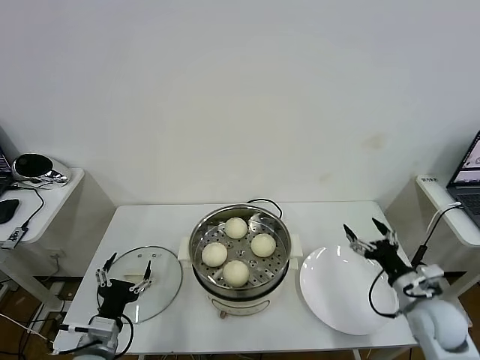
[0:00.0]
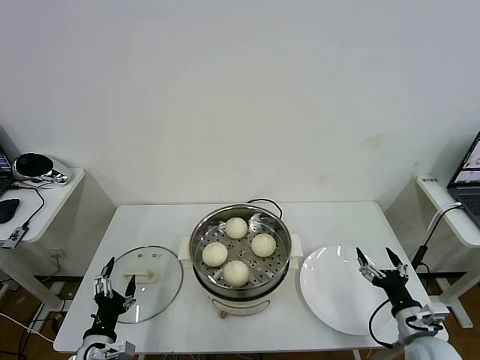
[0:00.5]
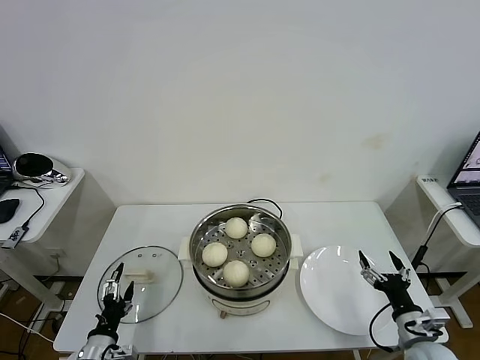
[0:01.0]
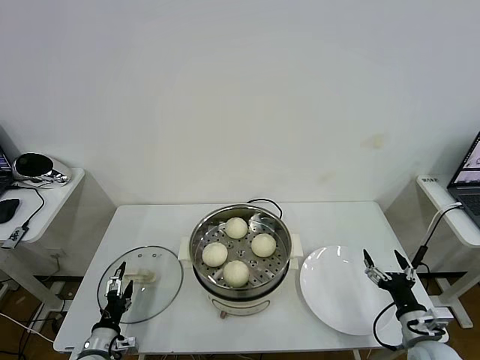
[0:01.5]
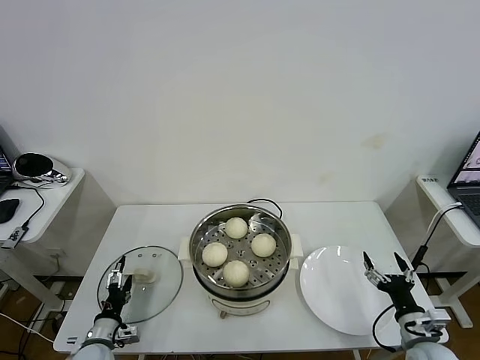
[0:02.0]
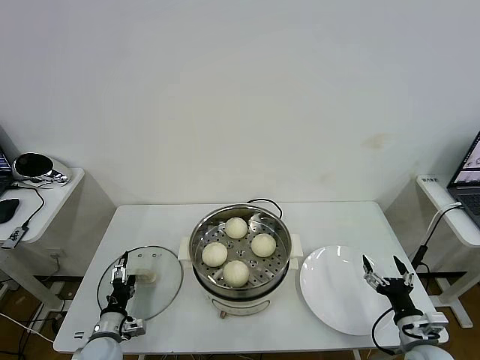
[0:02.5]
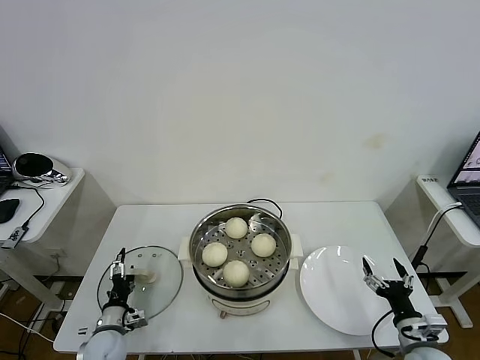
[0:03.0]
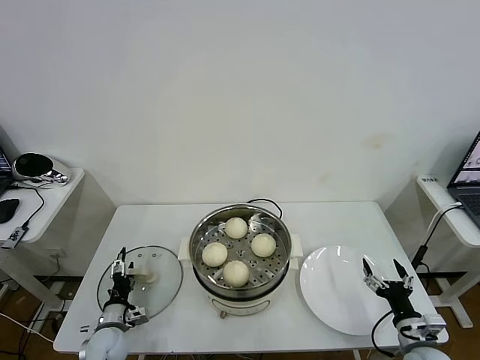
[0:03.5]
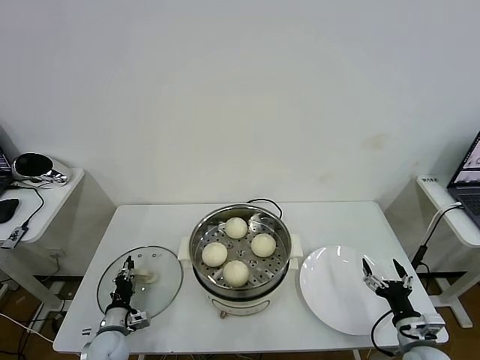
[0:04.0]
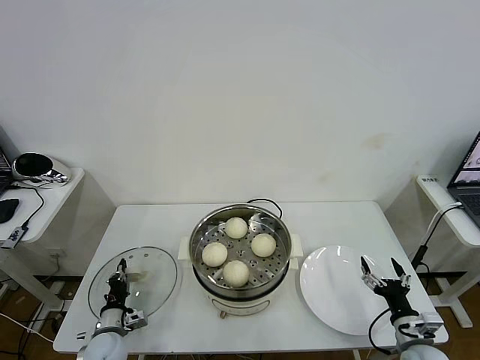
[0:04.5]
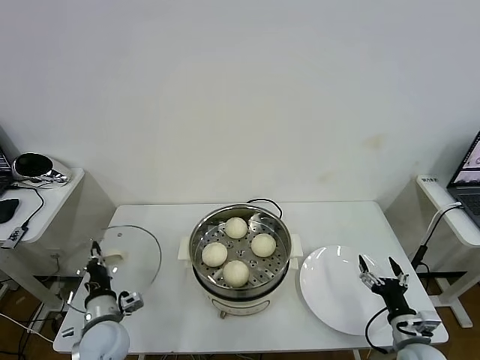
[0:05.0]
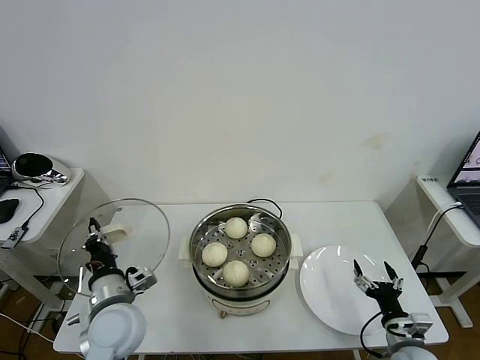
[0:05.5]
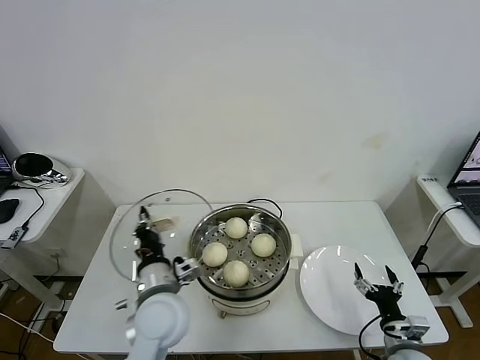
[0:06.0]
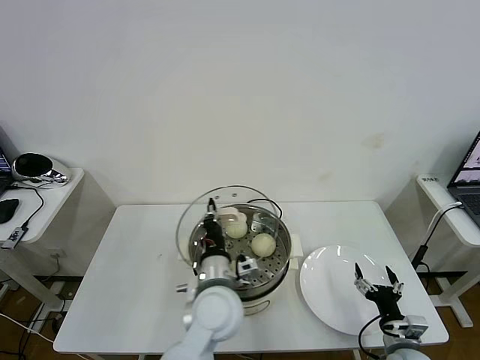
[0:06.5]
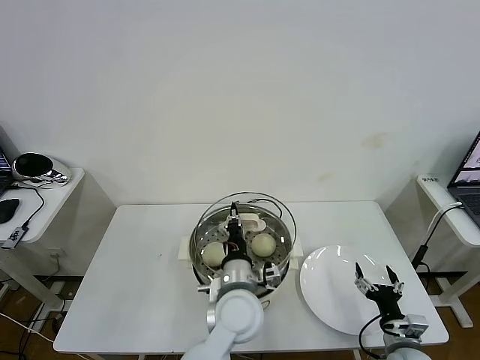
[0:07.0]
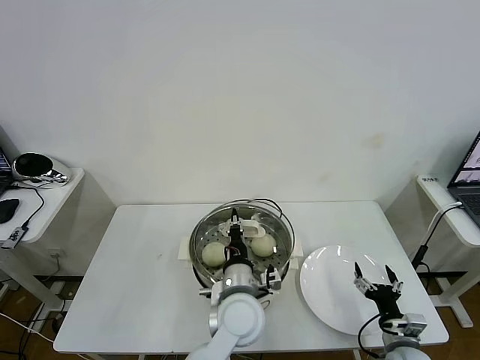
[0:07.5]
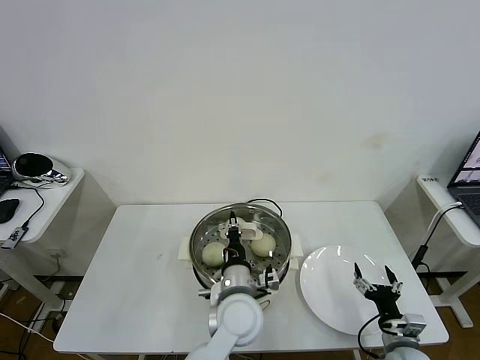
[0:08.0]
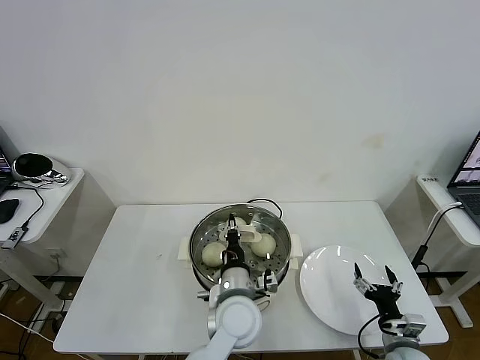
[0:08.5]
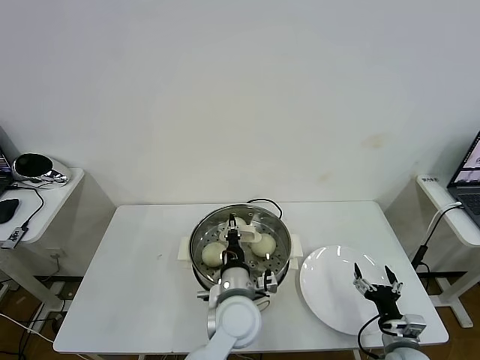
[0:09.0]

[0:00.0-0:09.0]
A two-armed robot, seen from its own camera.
Task of the whole recording: take steamed baozi put them in steamer then cover it.
Step, 0:00.0 to 0:04.0: Grasp the pot lid with left gripper.
0:00.0 to 0:02.0: The right gripper shifts some 10 cm backward and downward. The left gripper shifts roughly 15 cm downward and to the left.
0:02.0 to 0:04.5: The left gripper closes up.
0:04.5 to 0:07.0: The left gripper shifts roughly 40 cm to the right and upward.
0:07.0 to 0:09.0: The grippers stay close to where they were, moving slightly.

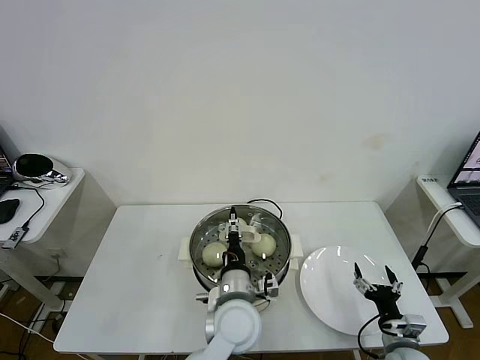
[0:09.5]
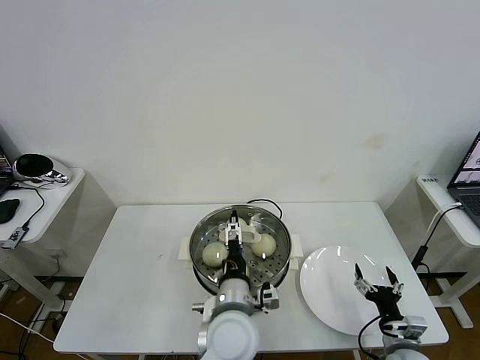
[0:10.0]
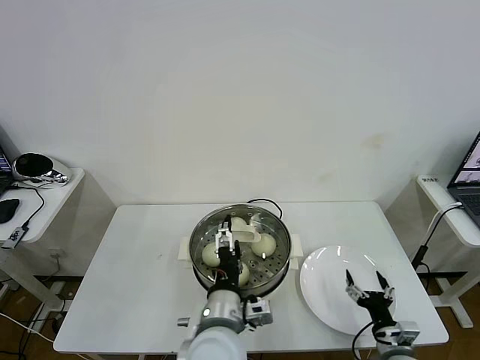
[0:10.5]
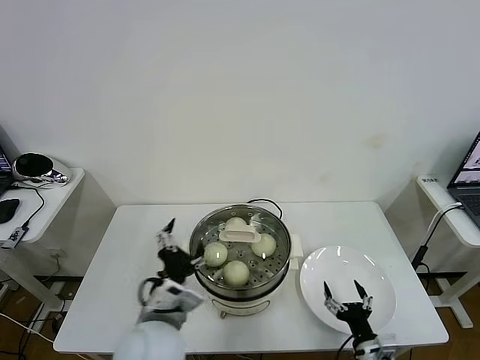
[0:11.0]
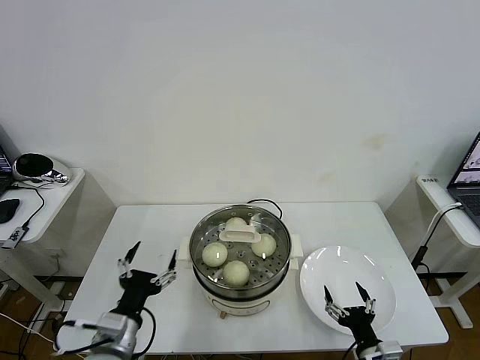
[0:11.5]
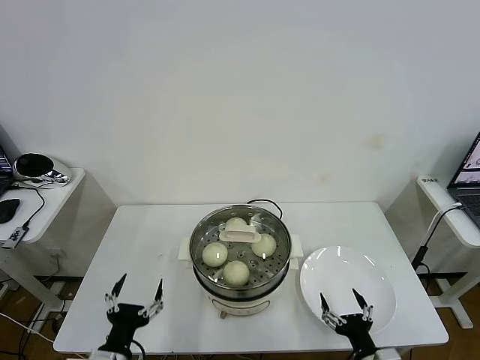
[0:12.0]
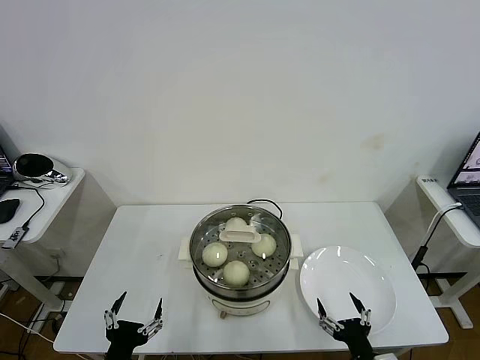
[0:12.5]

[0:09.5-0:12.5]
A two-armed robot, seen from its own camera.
Task of the whole recording: take steamed baozi put them in steamer then cover it.
0:09.5 to 0:11.0: The right gripper travels to the left by some 5 cm; the left gripper shifts some 15 cm to the left, upward and backward, and opens up.
0:11.0 to 0:12.5: The right gripper goes approximately 5 cm backward, while the left gripper is displaced to the left, downward and backward by some 20 cm.
